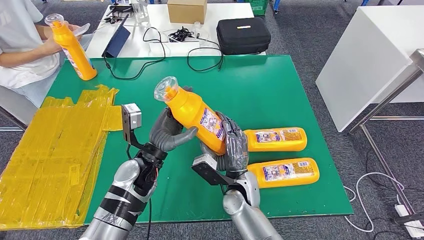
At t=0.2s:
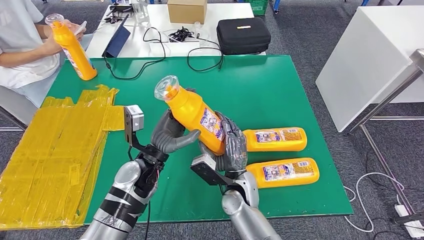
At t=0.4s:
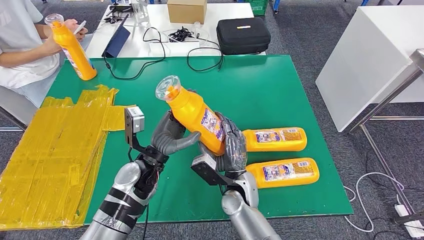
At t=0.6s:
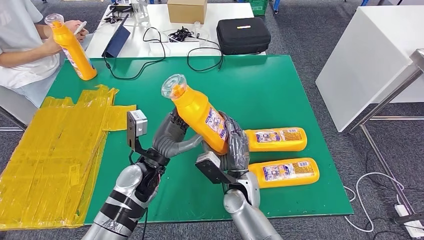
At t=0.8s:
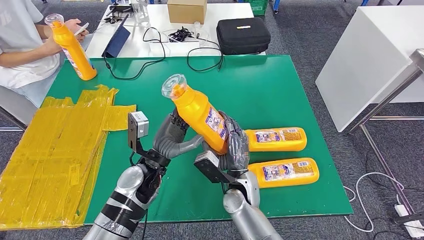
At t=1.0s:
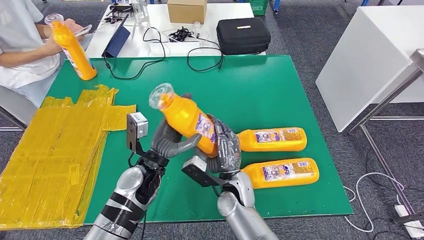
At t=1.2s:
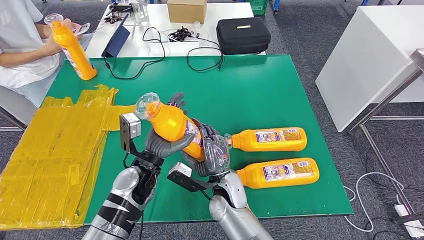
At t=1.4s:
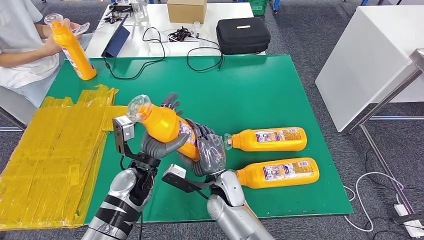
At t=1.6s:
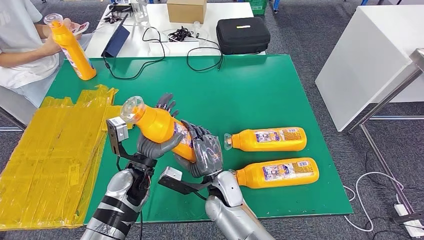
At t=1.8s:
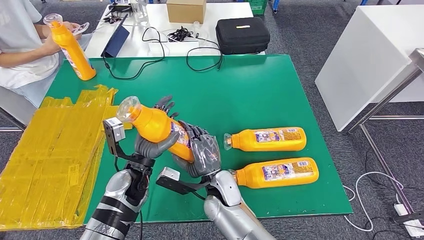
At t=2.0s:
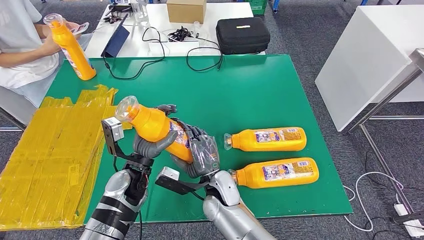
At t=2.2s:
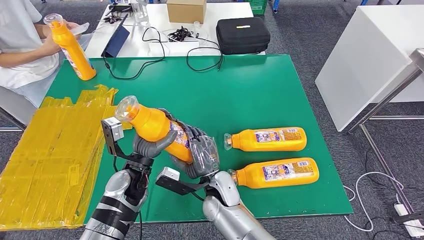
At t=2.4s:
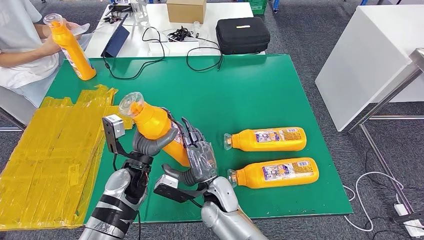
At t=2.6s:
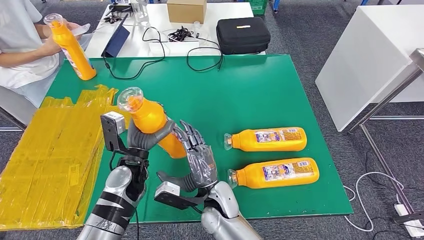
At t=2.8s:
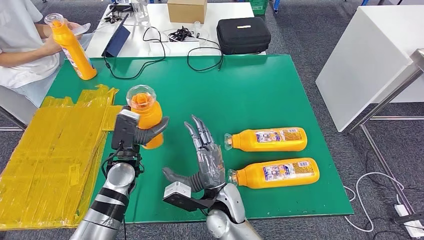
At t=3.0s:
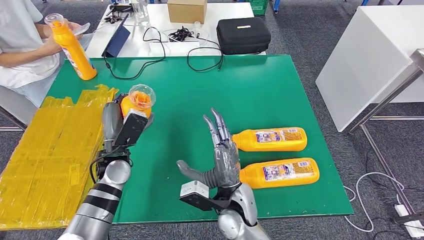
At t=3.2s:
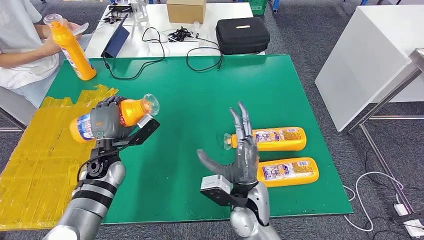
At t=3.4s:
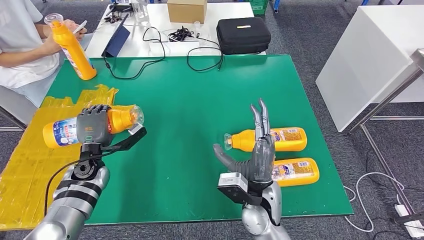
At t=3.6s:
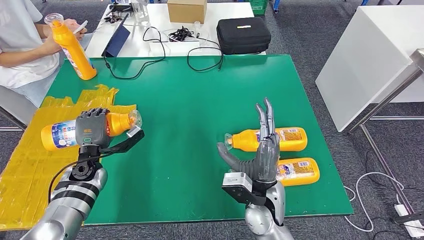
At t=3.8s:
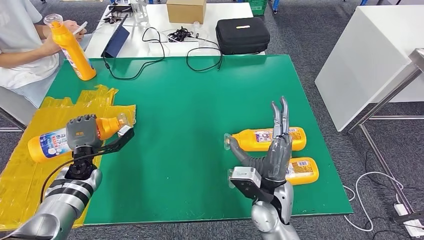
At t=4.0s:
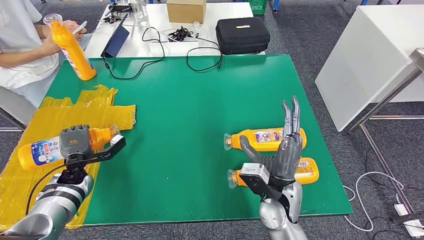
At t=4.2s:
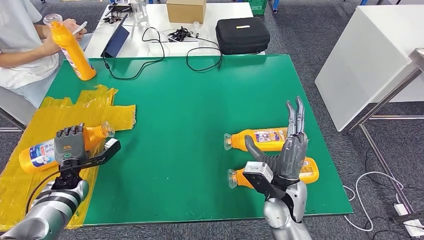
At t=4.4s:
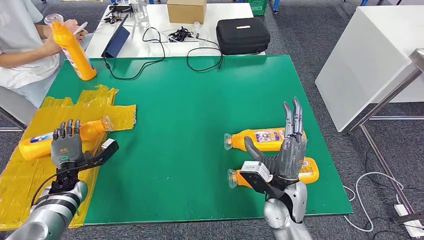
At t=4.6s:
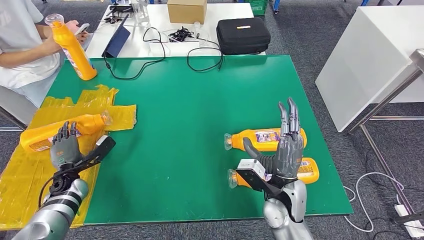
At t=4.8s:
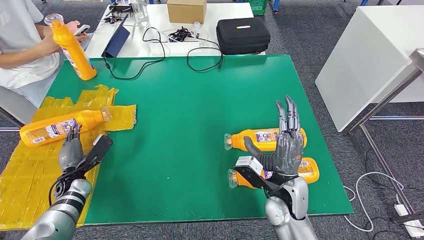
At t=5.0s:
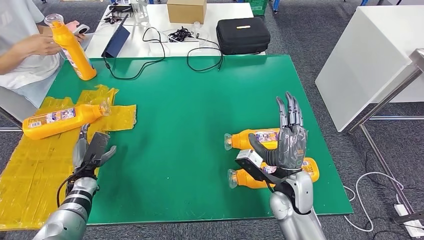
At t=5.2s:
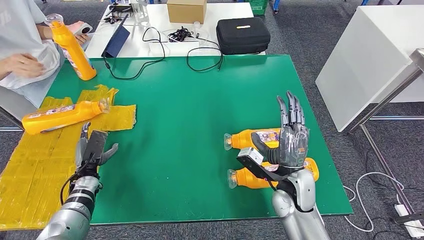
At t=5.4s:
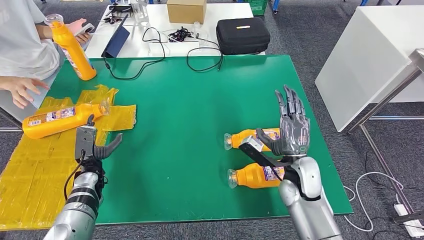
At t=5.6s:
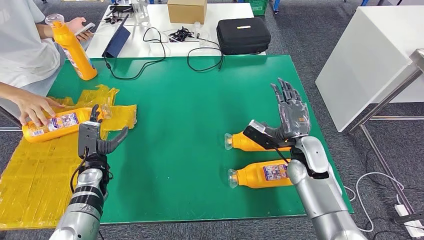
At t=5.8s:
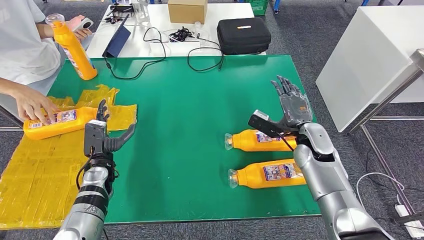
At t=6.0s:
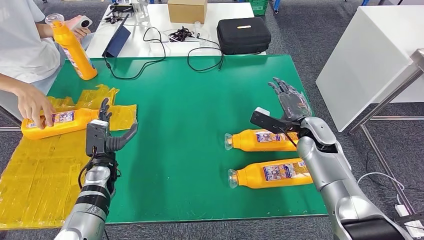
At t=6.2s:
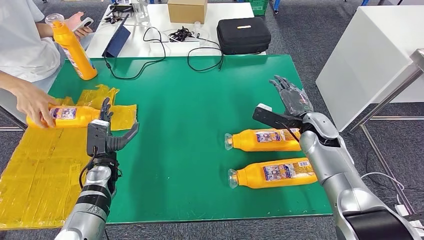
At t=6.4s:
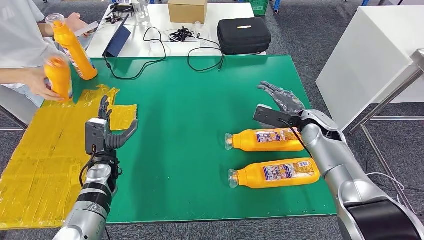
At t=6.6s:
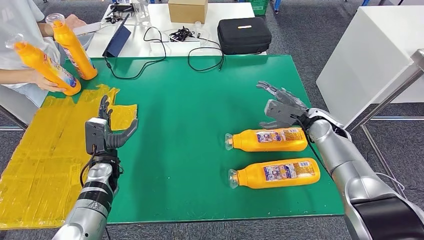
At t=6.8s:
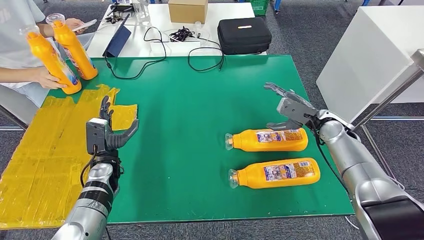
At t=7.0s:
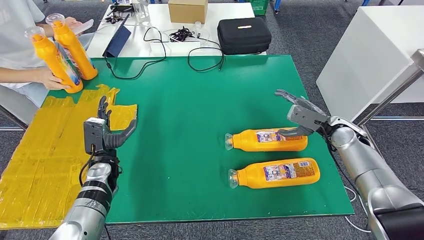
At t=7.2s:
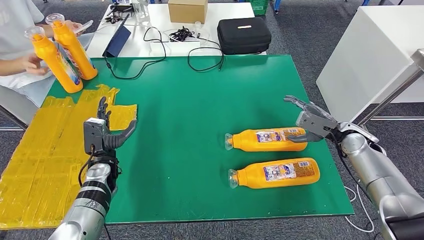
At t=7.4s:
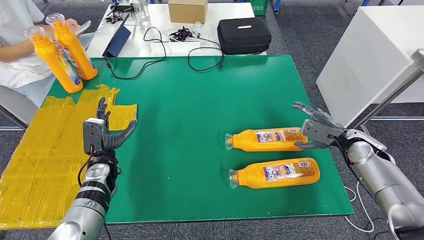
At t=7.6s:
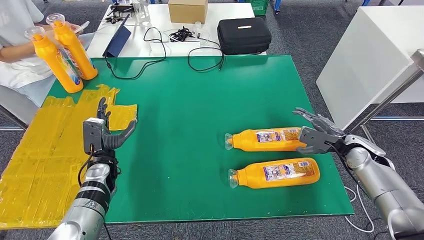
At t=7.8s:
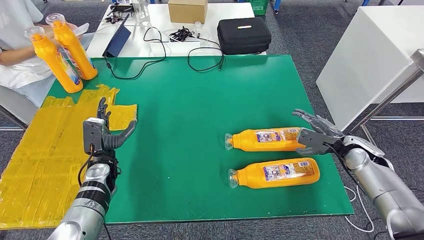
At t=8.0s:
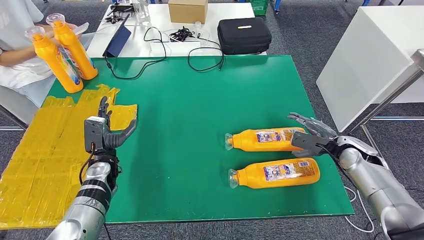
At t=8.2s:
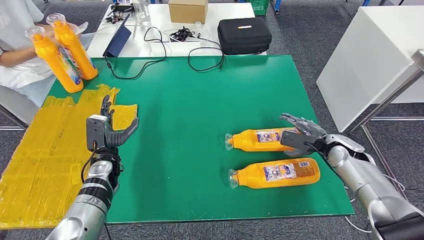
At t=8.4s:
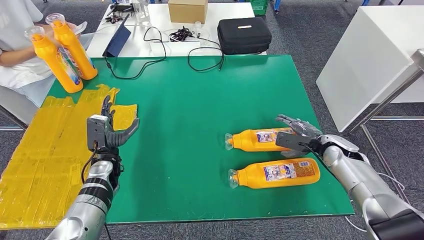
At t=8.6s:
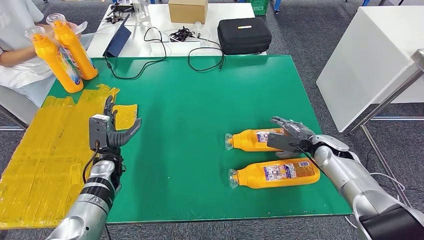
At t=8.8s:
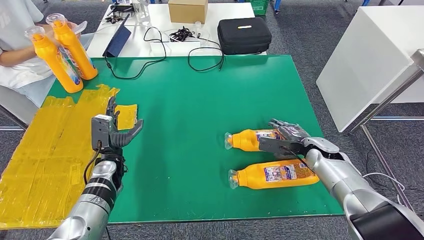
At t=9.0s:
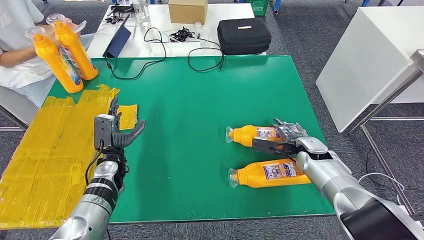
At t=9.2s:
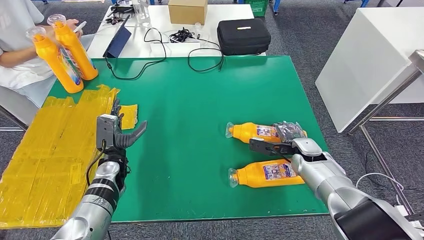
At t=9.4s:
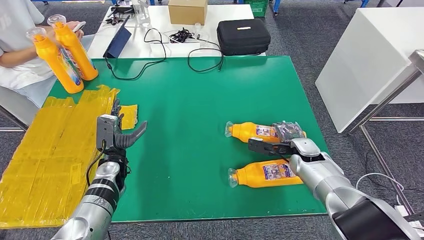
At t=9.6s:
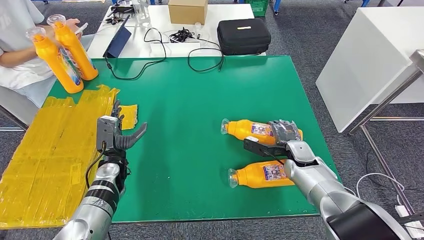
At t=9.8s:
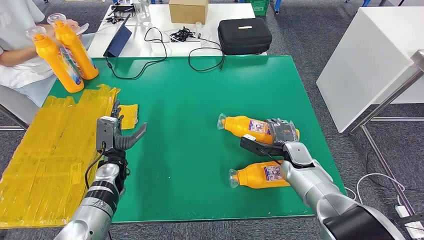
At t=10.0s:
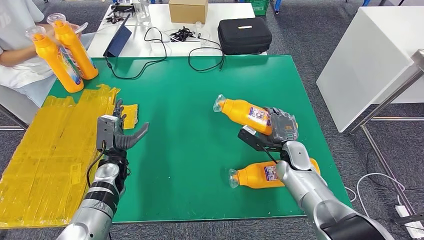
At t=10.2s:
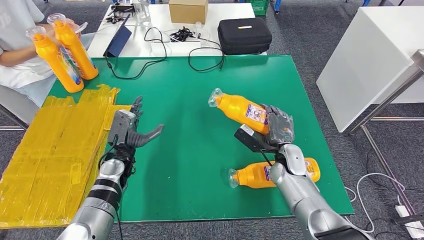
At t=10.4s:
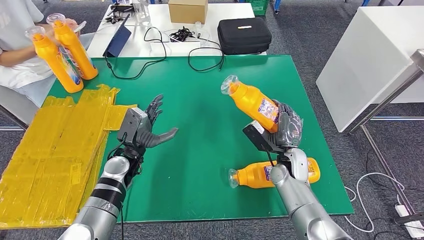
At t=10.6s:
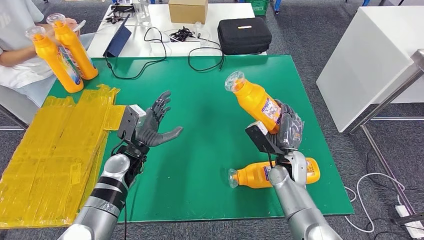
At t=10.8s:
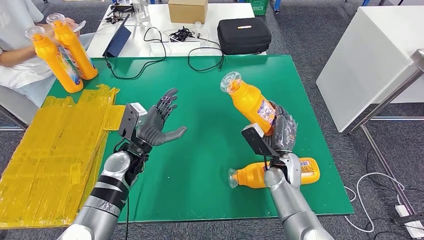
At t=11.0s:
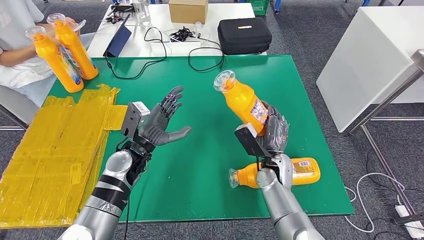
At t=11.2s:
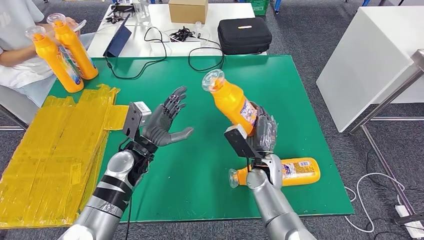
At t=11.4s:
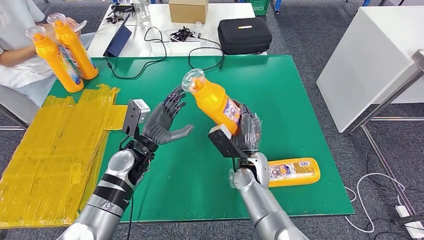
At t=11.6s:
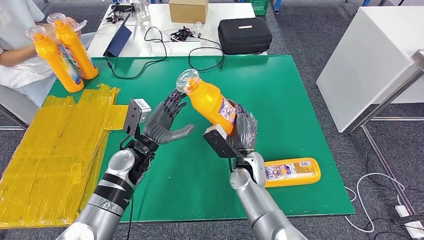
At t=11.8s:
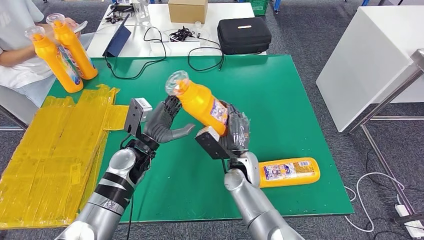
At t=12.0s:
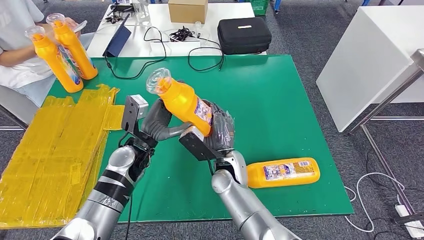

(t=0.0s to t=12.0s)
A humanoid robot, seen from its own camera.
Step, t=1.2s - t=4.6s: Flip the fast-moving consumer goods bottle to the front side.
t=0.0s - t=1.6s: The right hand travels to the left by approximately 5 cm.
t=1.6s - t=3.0s: The left hand heads to the left, covering about 5 cm; the right hand changes place by about 5 cm.
t=6.0s - t=7.6s: The right hand heads to the right, covering about 15 cm.
t=7.6s - t=9.0s: The right hand travels to the left by roughly 10 cm.
t=9.0s - t=10.4s: The right hand is displaced to the left by roughly 10 cm. Meanwhile the left hand is displaced to the right by about 5 cm.
t=10.4s - t=12.0s: The right hand shifts about 20 cm to the left. The left hand shifts by some 5 cm.

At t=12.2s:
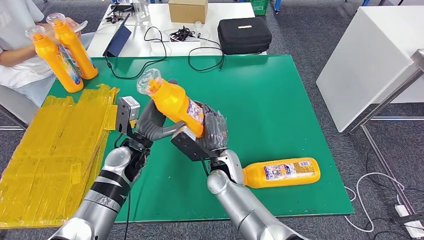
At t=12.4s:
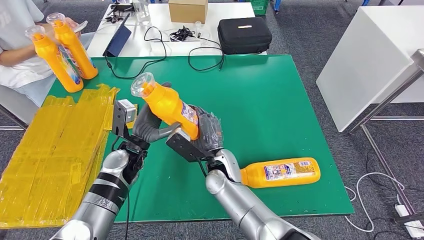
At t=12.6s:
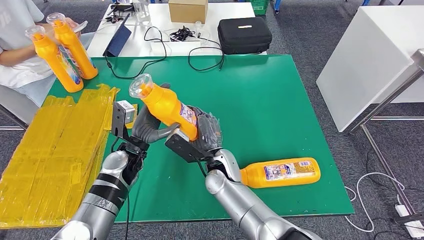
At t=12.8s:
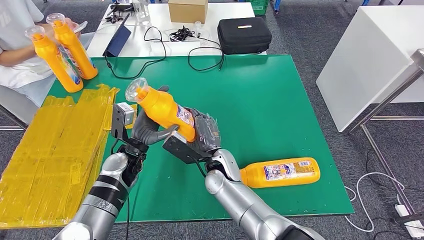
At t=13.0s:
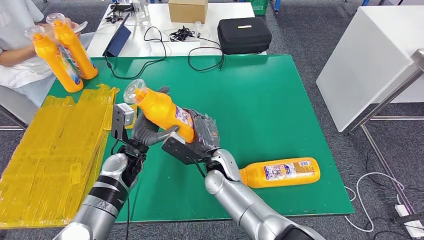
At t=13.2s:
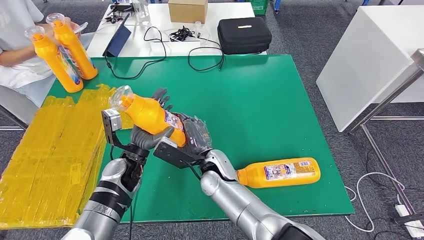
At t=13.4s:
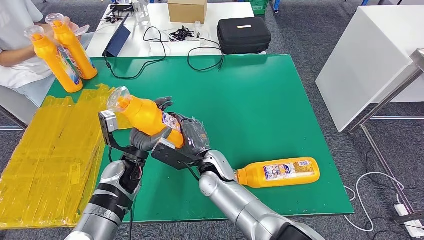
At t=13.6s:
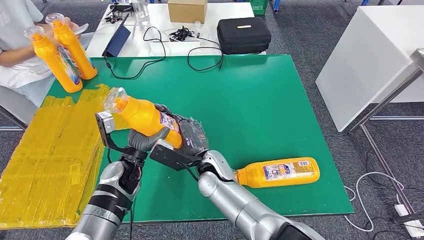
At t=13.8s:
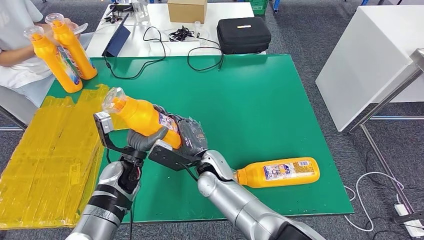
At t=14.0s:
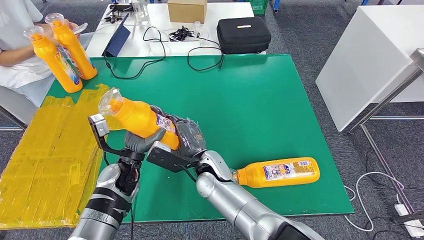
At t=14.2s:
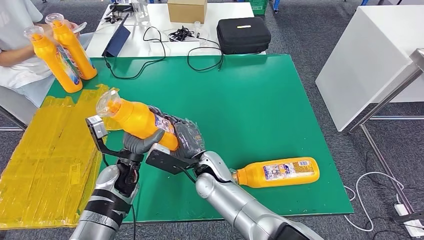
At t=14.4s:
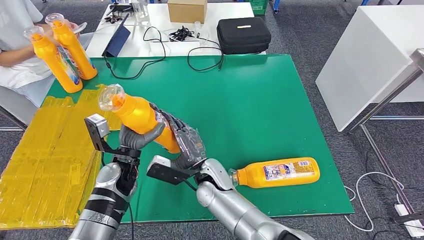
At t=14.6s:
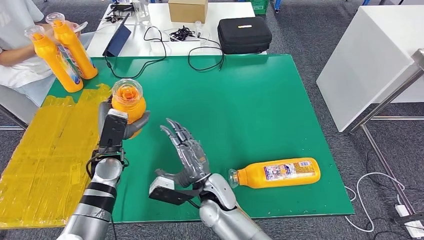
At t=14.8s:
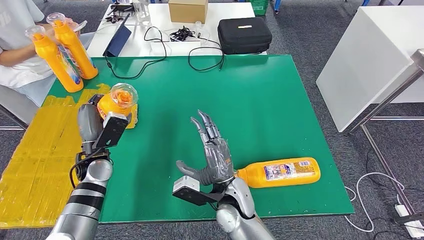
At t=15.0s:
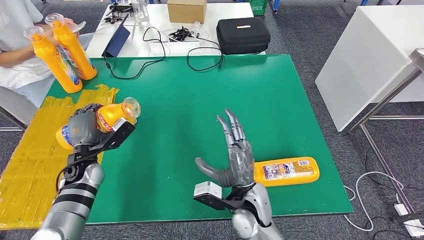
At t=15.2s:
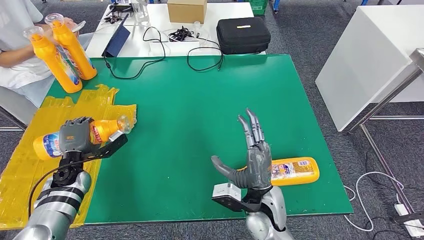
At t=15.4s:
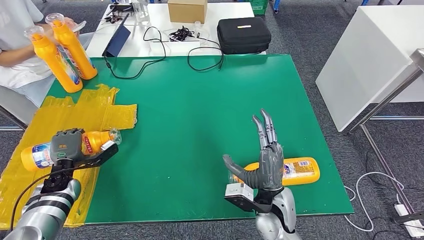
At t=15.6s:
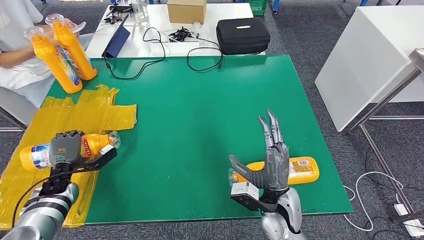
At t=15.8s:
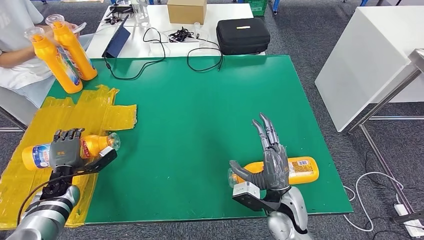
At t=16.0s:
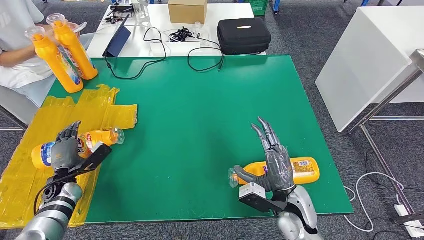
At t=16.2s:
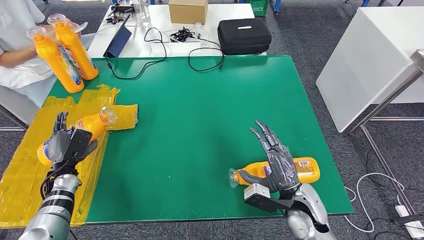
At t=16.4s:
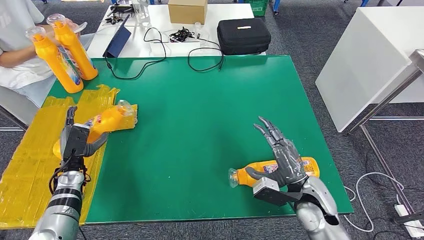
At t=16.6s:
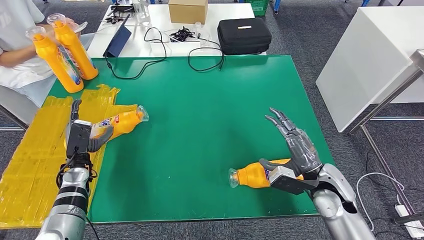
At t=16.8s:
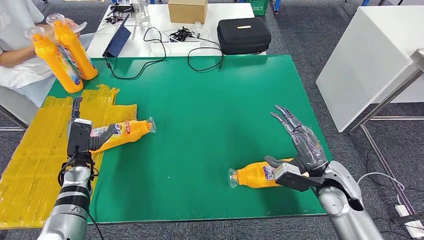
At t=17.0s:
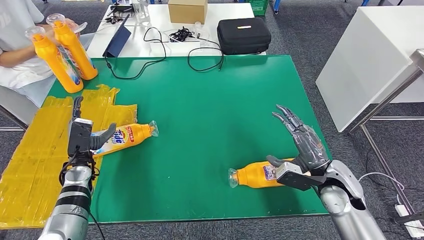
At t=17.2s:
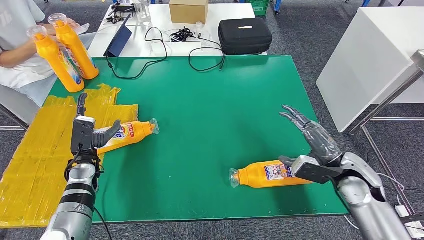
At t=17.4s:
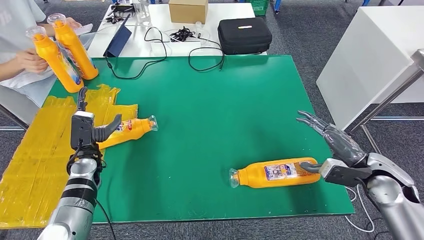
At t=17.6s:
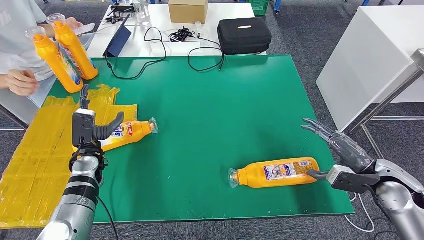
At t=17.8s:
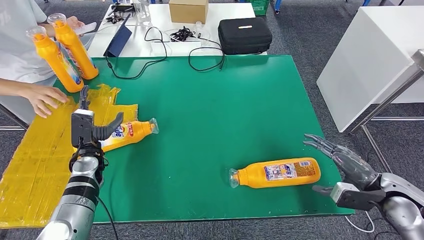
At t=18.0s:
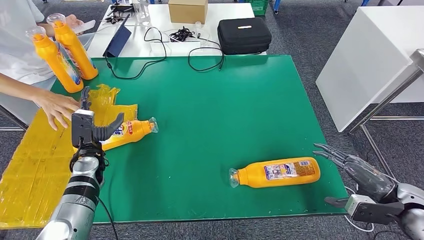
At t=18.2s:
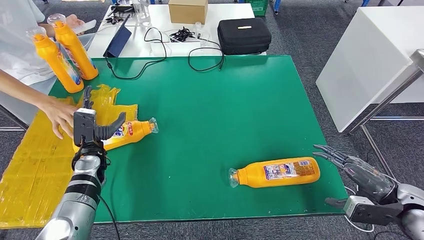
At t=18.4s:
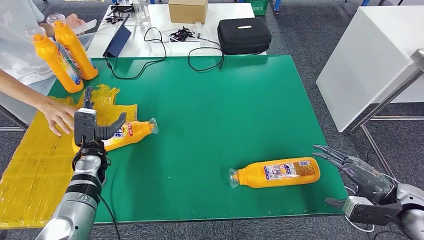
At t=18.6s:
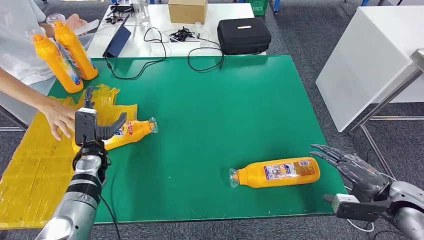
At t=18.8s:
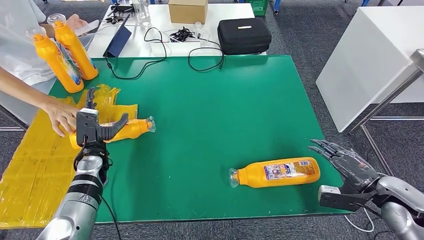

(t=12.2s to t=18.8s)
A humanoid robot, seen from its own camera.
Step, t=12.2s - t=16.4s: Flip the fast-moving consumer goods bottle to the front side.
t=13.8s - t=15.4s: The right hand goes some 15 cm to the right and backward. Meanwhile the left hand is displaced to the left by about 20 cm.
t=17.2s - t=18.8s: The right hand goes some 10 cm to the right and backward.
